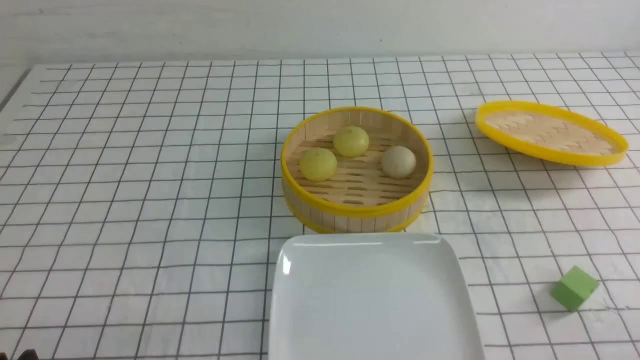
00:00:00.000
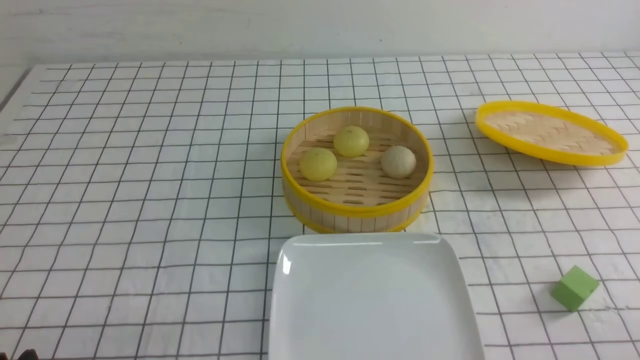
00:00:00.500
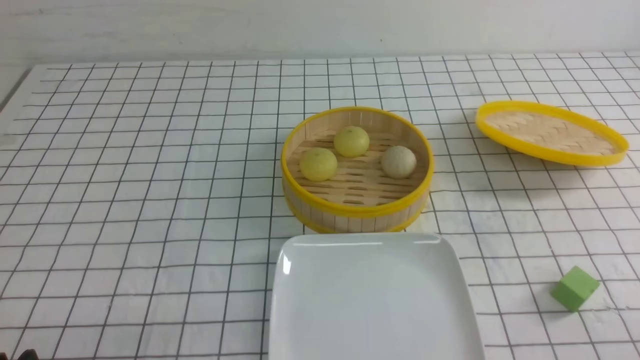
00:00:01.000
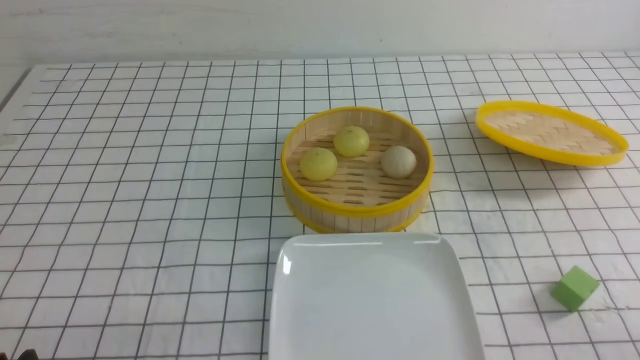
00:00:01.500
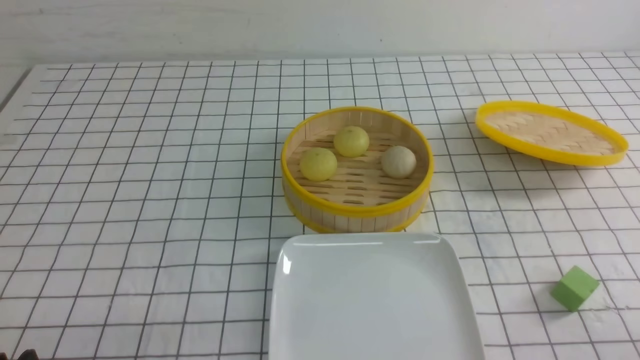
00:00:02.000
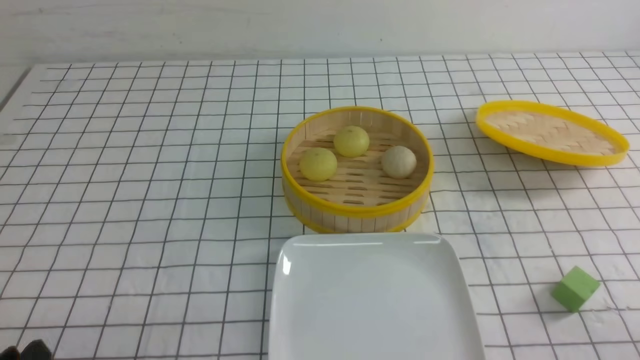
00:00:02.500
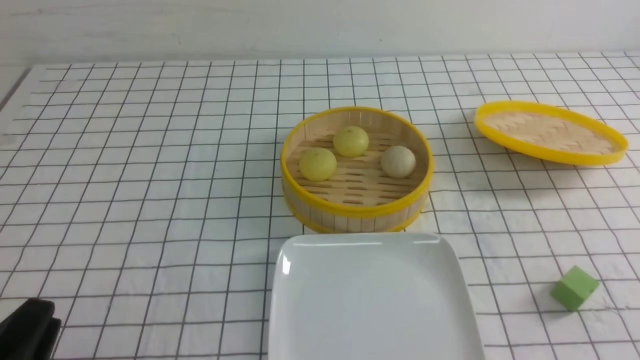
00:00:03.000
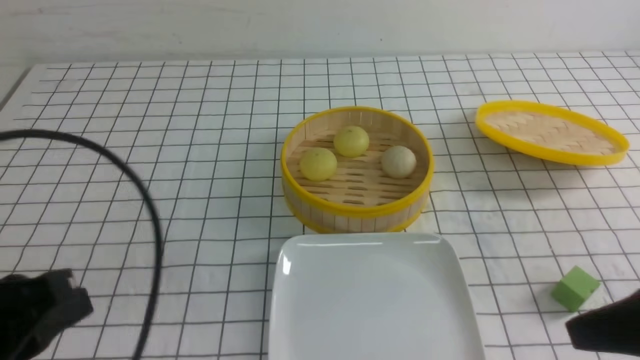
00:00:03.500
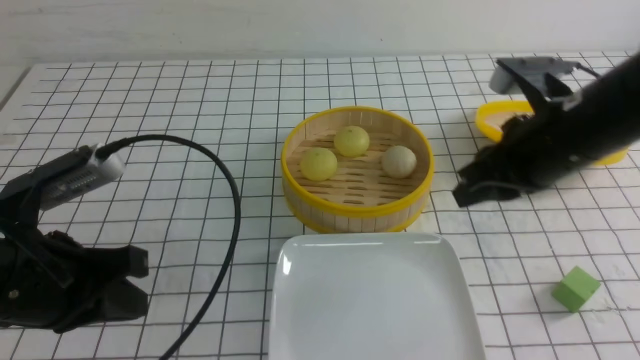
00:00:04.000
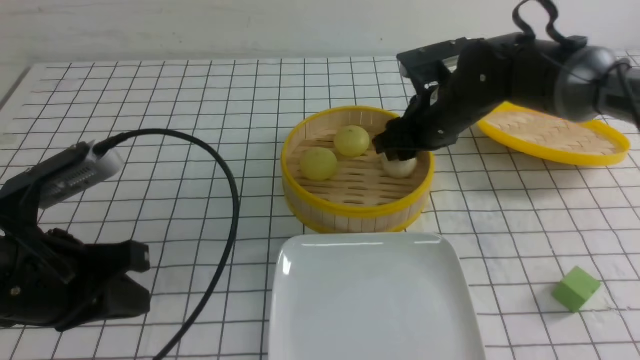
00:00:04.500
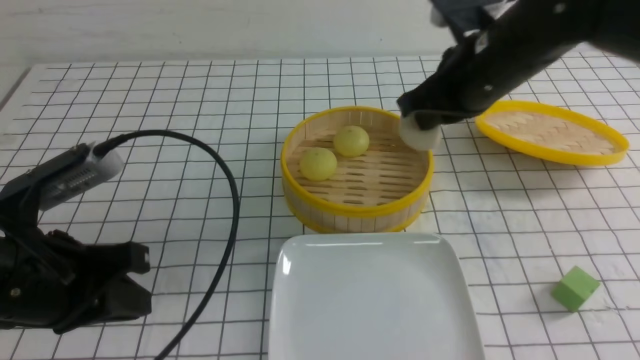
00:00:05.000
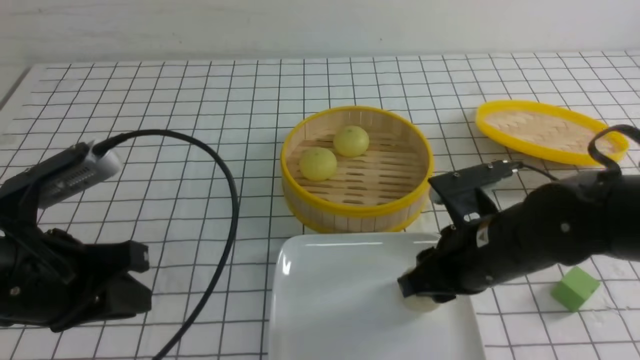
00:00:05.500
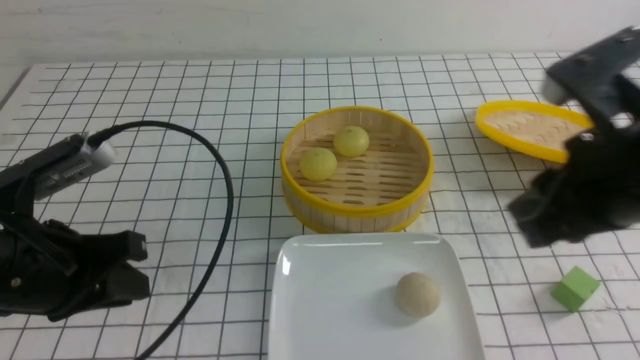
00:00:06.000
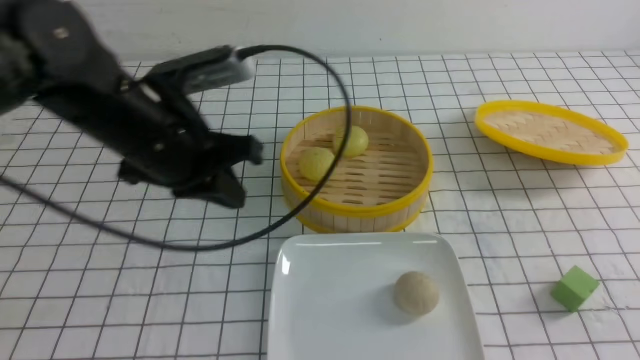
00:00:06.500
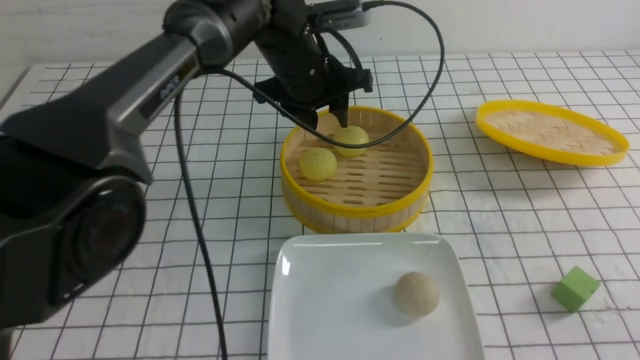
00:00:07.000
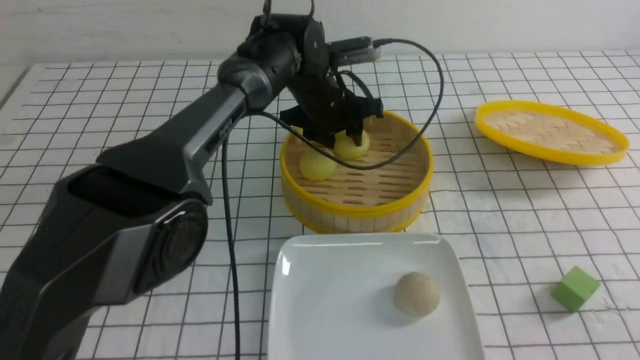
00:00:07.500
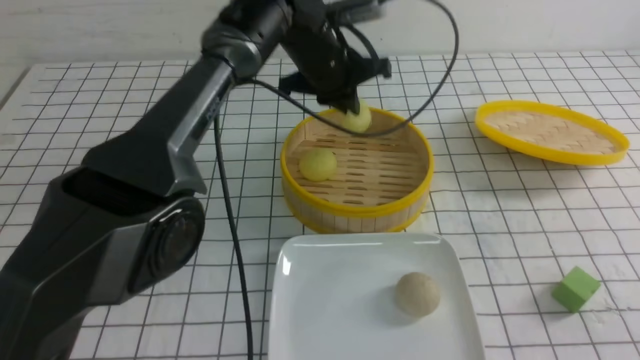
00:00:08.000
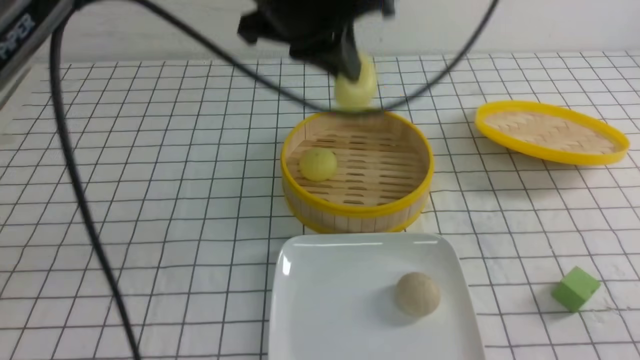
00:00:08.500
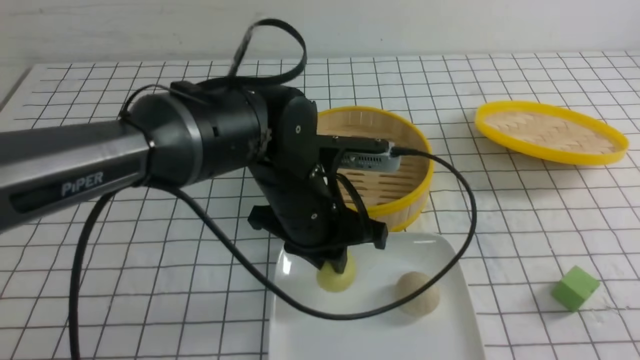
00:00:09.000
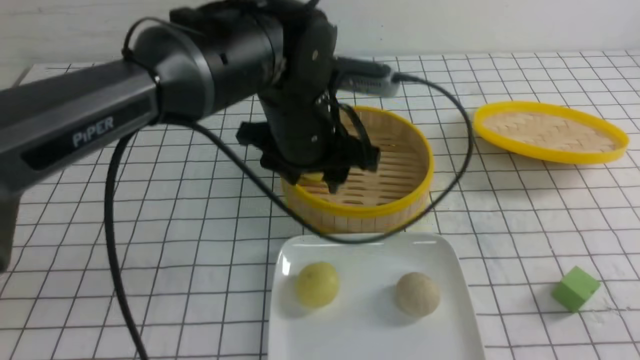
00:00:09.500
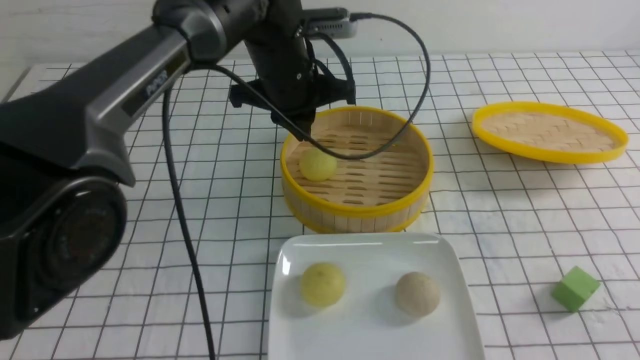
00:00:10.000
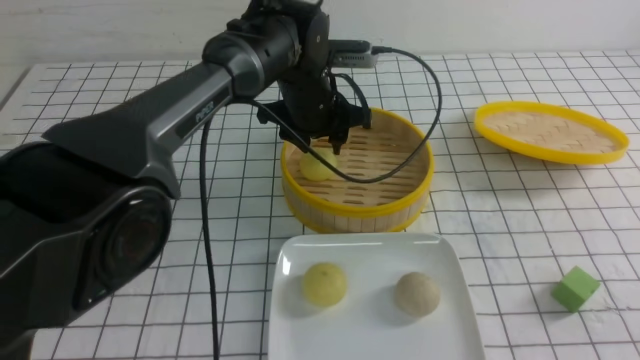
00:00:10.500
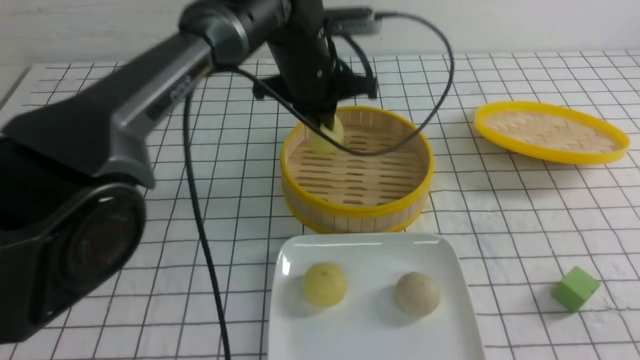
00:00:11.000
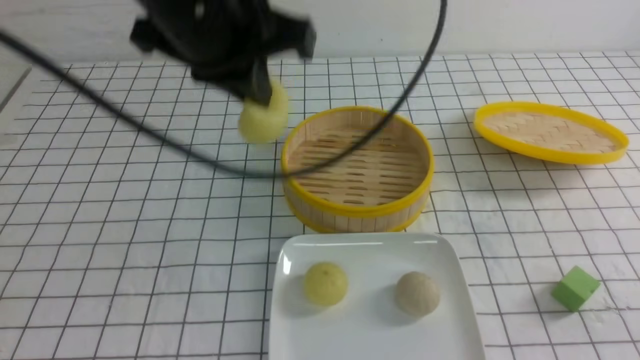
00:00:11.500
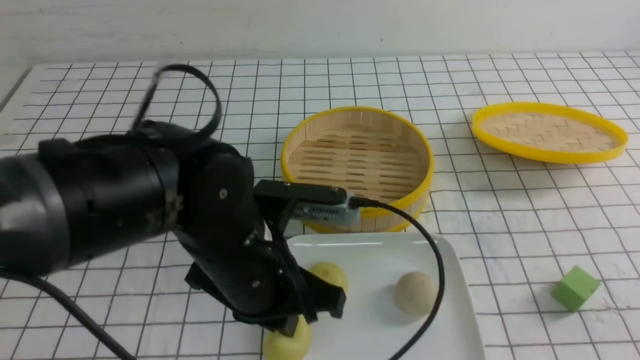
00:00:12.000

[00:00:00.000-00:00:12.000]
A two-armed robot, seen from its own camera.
Step, 00:00:00.000 to 00:00:04.500: use the right arm to grab the steamed stuffed bun that is closest to it.
Step, 00:00:05.000 to 00:00:05.500: use the right arm to put the steamed stuffed bun into the plate.
Step, 00:00:06.000 to 00:00:07.500: use the left arm to grab the steamed stuffed bun that is closest to it.
Step, 00:00:08.000 to 00:00:09.000: use the left arm to put the steamed stuffed bun into the plate.
Step, 00:00:09.500 to 00:00:10.500: use the left arm to grab the steamed stuffed bun that is closest to it.
00:00:02.000 to 00:00:04.000: The right gripper shifts approximately 30 cm forward, to the left and upward, and closes, then reopens. Meanwhile the left gripper moves forward and upward, about 15 cm, and closes up.
00:00:04.000 to 00:00:06.000: The right gripper travels backward by about 10 cm, and closes, then opens again.
00:00:06.000 to 00:00:08.000: The left gripper goes about 35 cm forward and to the right, and opens, then closes once more. The right gripper heads backward, to the right and downward, covering about 15 cm, and closes.
00:00:08.000 to 00:00:10.000: The left gripper reaches approximately 15 cm backward, then returns, and opens, then closes again.
00:00:10.000 to 00:00:12.000: The left gripper goes approximately 20 cm backward, and opens and closes again.

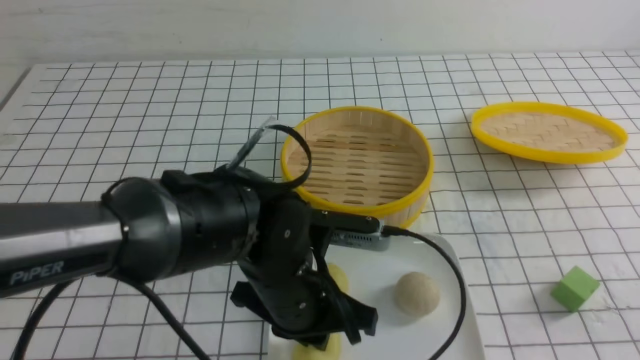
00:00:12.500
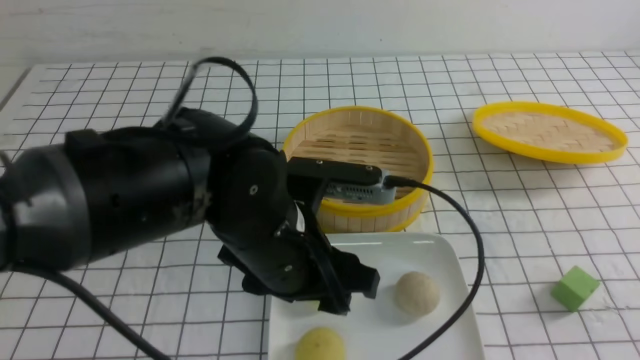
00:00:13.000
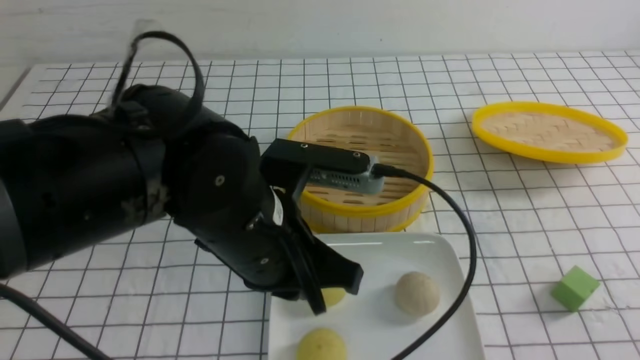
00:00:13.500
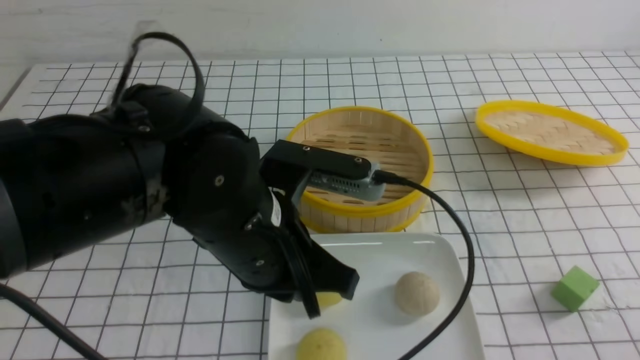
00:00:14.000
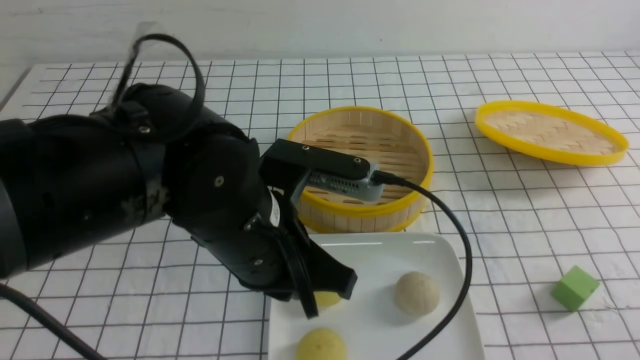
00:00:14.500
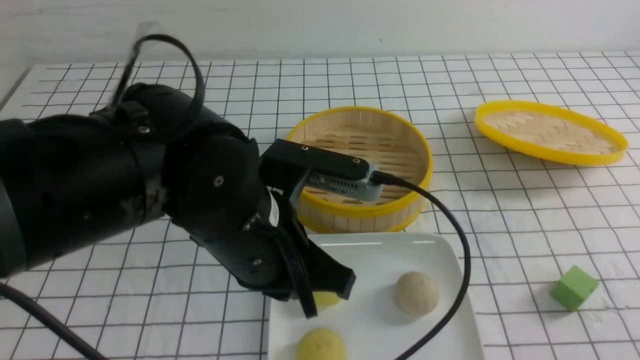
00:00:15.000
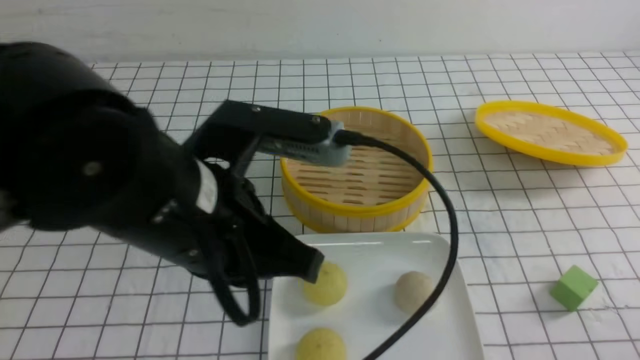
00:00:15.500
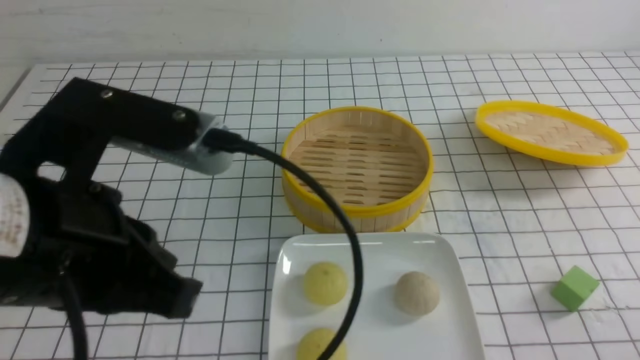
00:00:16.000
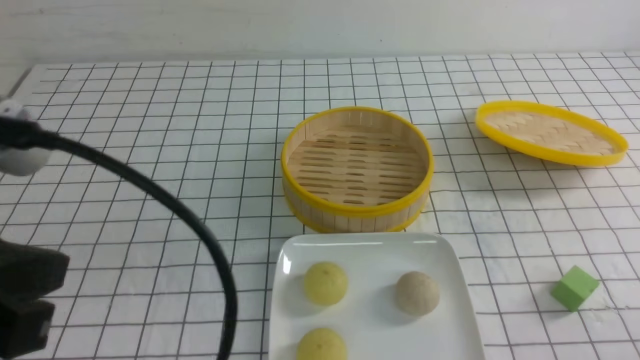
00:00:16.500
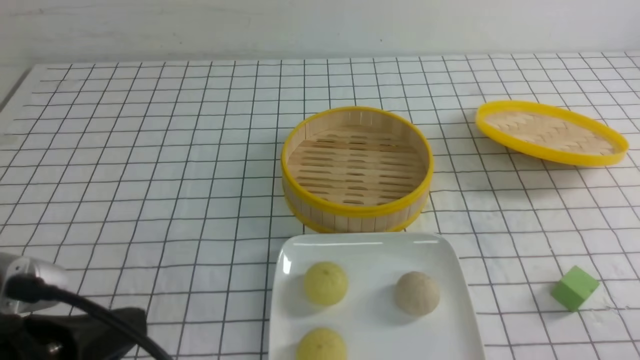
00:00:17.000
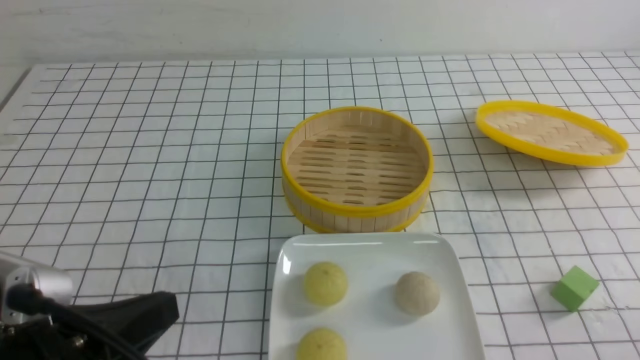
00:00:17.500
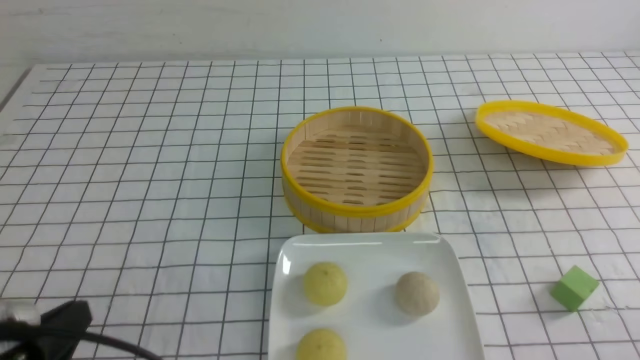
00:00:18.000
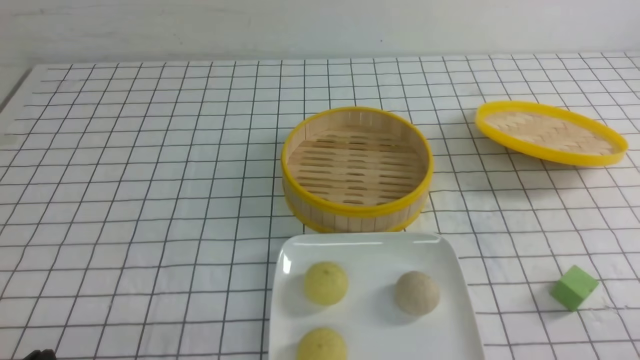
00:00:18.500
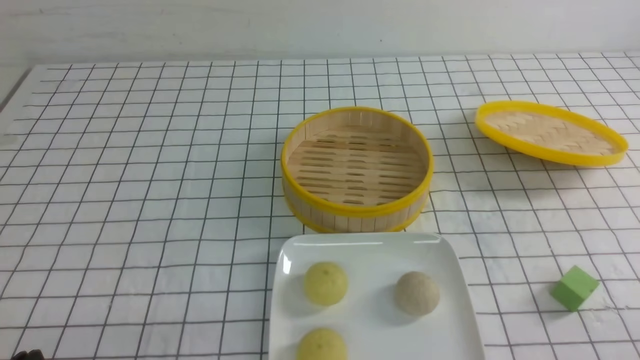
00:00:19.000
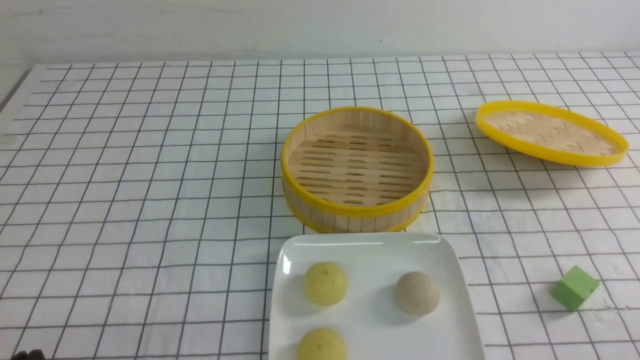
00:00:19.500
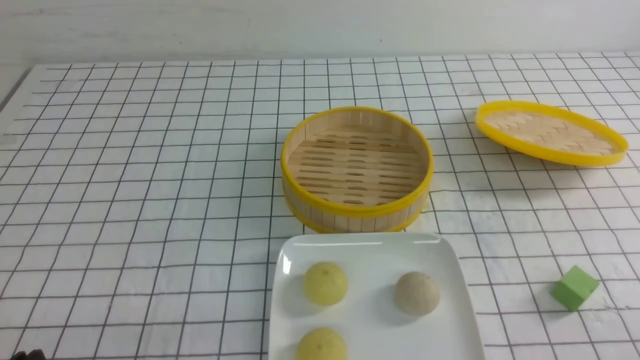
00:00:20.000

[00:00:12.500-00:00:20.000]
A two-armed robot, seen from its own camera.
00:00:12.500 to 00:00:14.500: The left gripper goes roughly 10 cm upward, and opens and closes again.
00:00:14.500 to 00:00:16.500: The left gripper shifts some 20 cm to the left, backward and upward. Meanwhile the right gripper moves downward, approximately 10 cm.
00:00:16.500 to 00:00:18.000: The left gripper moves downward, roughly 15 cm.
00:00:18.000 to 00:00:20.000: The left gripper shifts by about 5 cm.
